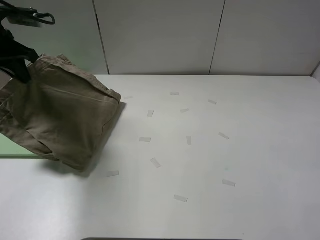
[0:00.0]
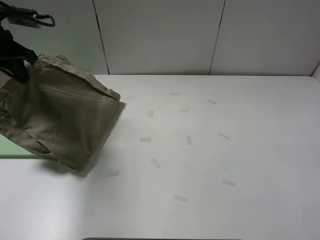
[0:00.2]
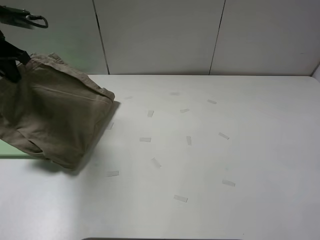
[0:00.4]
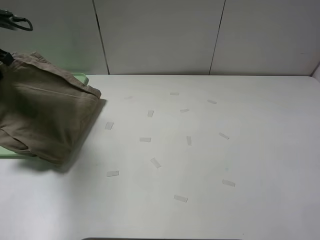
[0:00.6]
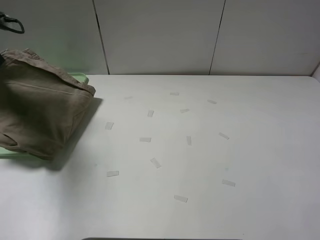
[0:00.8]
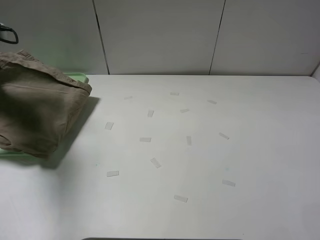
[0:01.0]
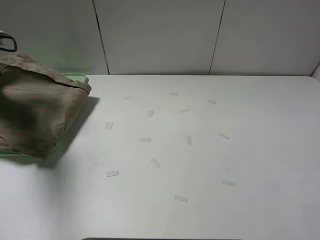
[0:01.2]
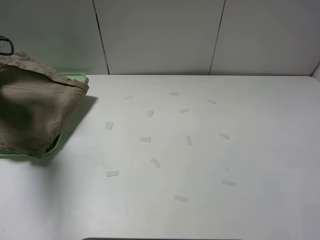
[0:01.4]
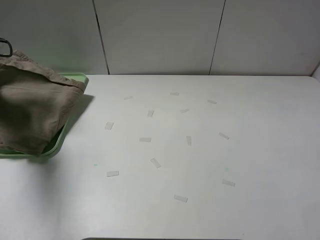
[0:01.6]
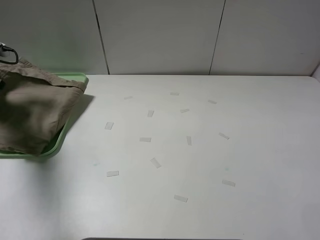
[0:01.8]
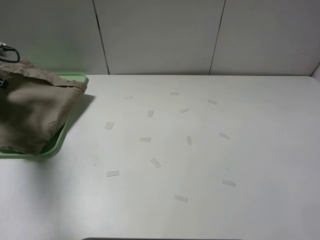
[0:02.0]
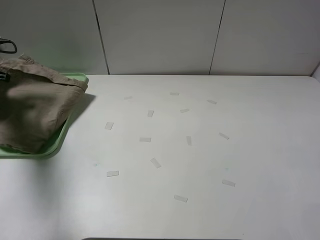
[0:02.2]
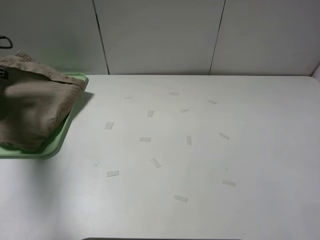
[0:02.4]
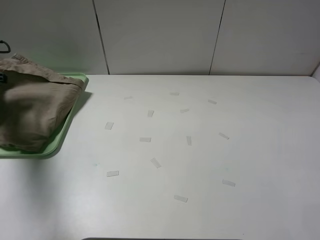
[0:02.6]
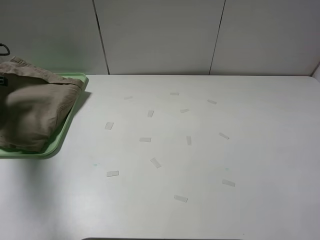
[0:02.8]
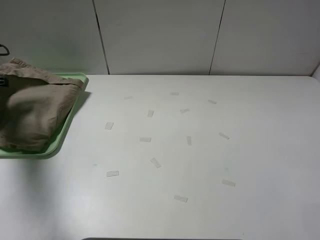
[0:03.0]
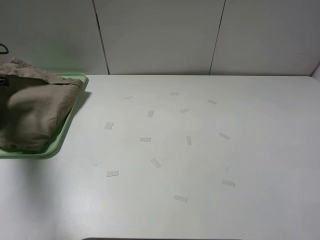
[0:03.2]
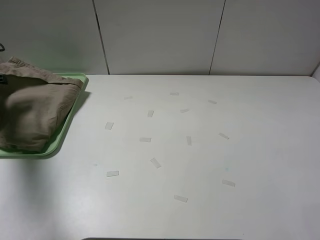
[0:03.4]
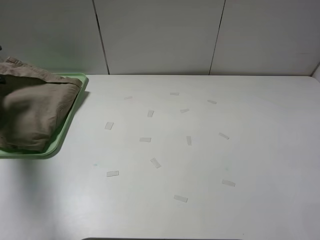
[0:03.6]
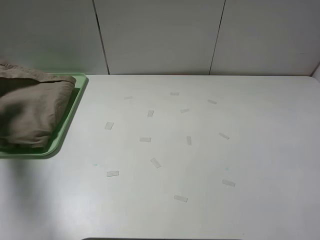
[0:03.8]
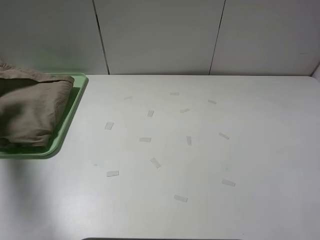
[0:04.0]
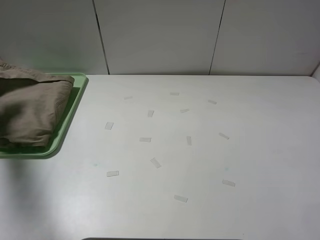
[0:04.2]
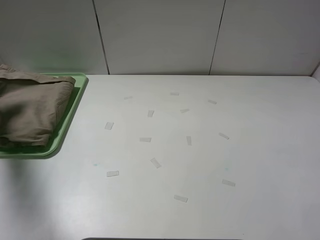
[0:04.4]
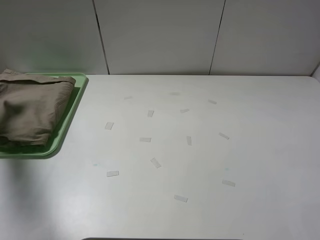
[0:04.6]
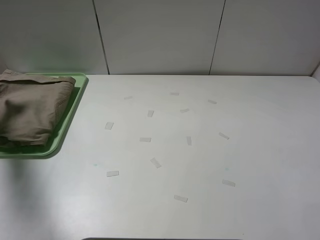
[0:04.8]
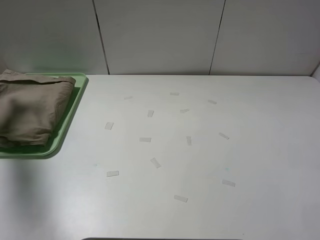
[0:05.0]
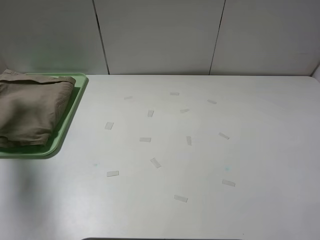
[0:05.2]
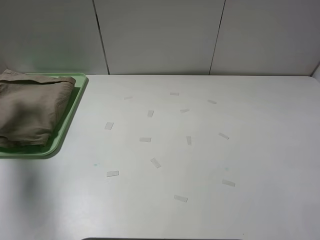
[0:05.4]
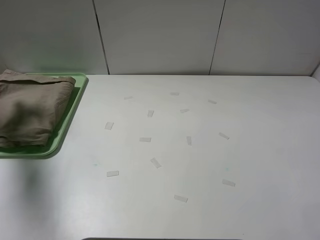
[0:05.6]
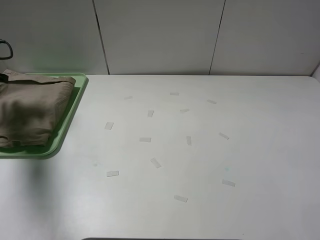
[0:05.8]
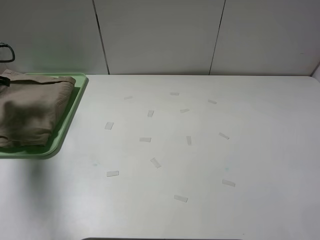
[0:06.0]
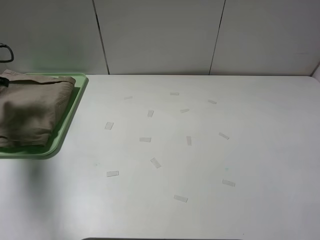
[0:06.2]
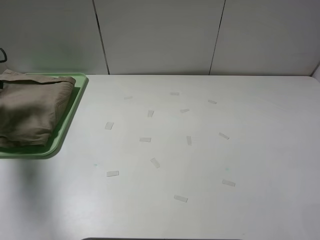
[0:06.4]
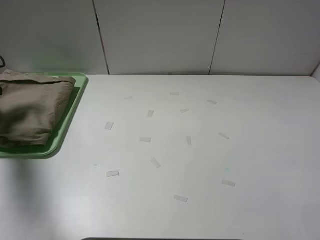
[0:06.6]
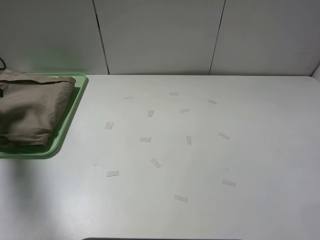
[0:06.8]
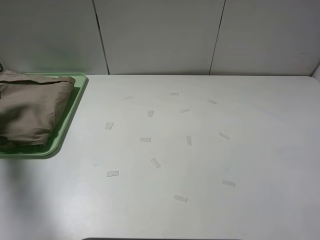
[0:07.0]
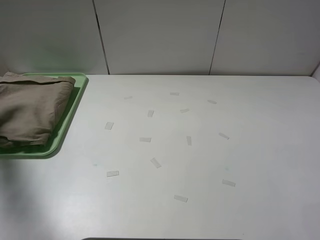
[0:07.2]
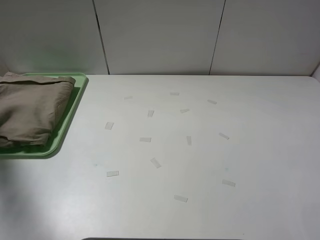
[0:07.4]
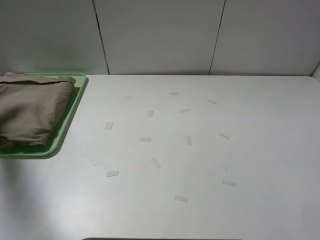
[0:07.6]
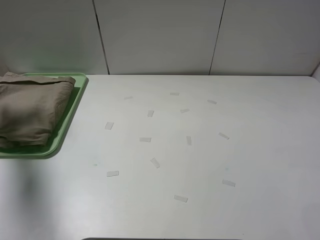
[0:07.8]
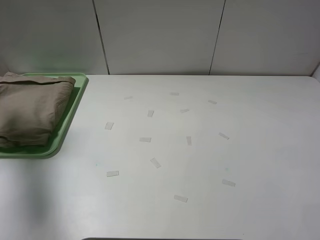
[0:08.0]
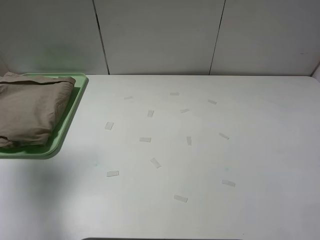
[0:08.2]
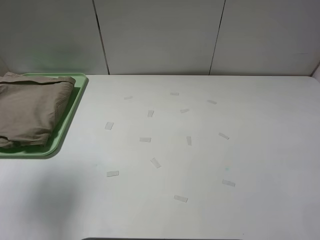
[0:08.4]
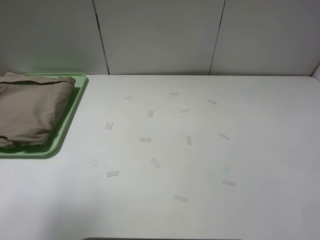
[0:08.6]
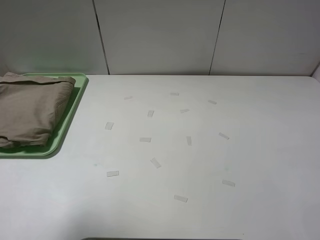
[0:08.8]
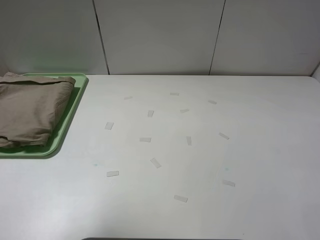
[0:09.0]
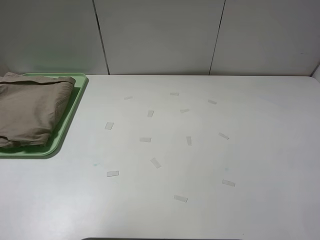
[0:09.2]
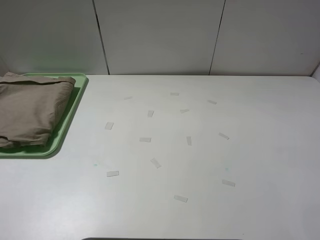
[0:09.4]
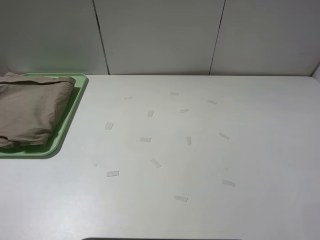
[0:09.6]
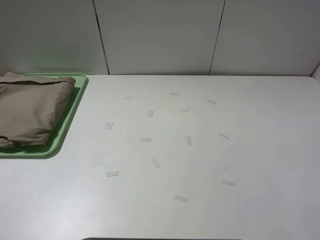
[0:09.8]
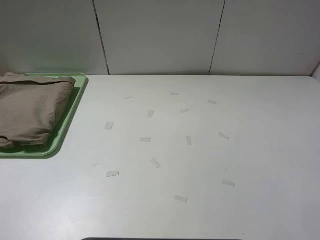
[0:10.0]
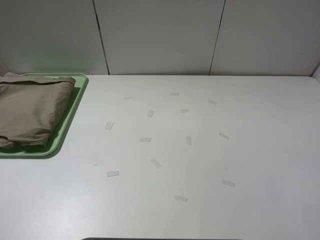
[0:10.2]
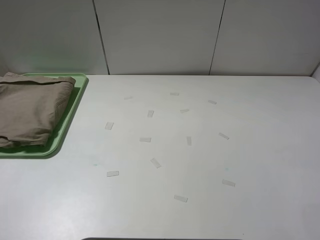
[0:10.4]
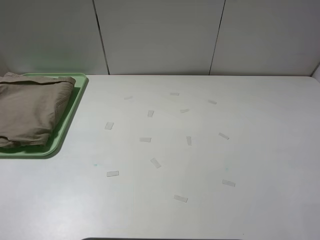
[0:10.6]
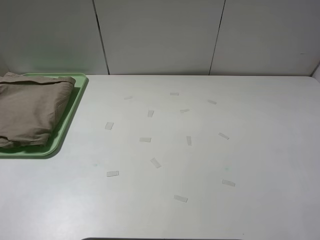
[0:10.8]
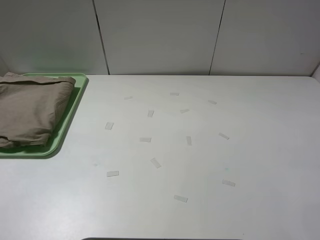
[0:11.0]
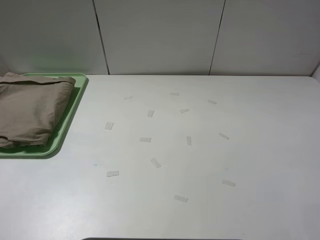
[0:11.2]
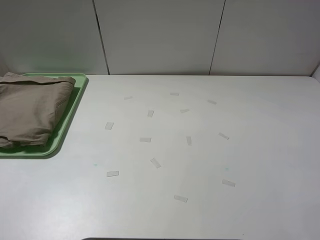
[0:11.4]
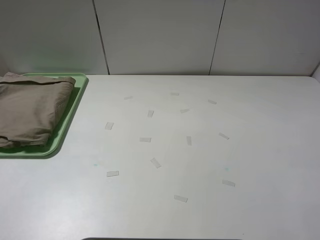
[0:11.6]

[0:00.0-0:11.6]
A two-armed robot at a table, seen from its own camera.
Task of the whole recording: fold the khaki jeans in half with two grippers, then fold them in half again, and use the left claw to place the folded fold khaki jeans on the tray.
Step, 0:00.0 to 0:04.6: Place the folded khaki trousers on the green tray with the left gripper.
0:00.0 to 0:01.4: The left gripper moves to the left, approximately 10 cm.
0:01.4 to 0:02.8: The left gripper heads downward, covering approximately 5 cm.
0:02.8 to 0:04.4: The left gripper opens up.
0:04.4 to 0:05.8: The left gripper opens, then closes once more.
0:05.8 to 0:07.2: The left gripper moves to the left, about 5 cm.
0:07.2 to 0:08.8: The left gripper shifts approximately 40 cm upward, backward and to the right, and opens.
0:08.8 to 0:10.2: The left gripper goes roughly 20 cm backward and downward.

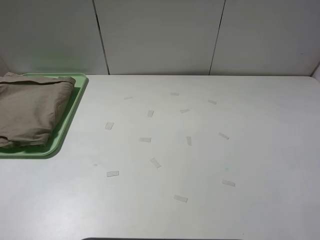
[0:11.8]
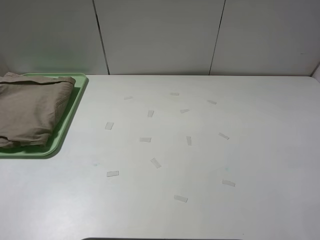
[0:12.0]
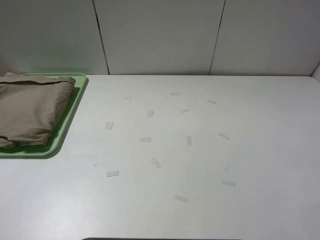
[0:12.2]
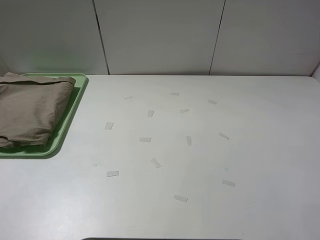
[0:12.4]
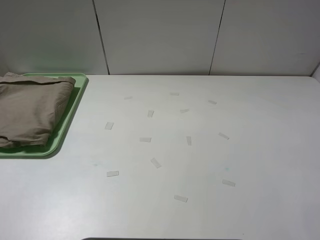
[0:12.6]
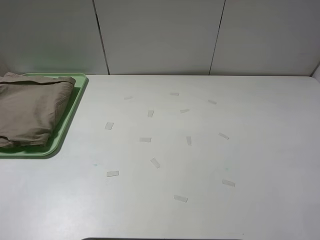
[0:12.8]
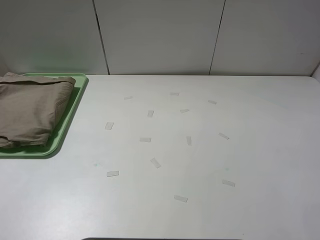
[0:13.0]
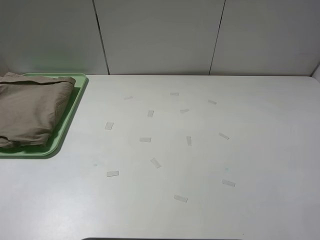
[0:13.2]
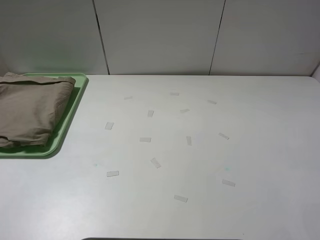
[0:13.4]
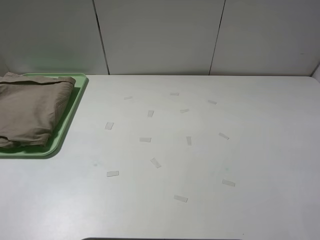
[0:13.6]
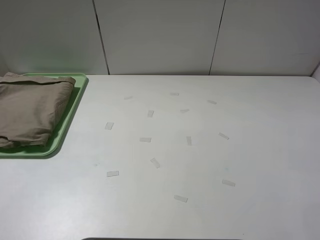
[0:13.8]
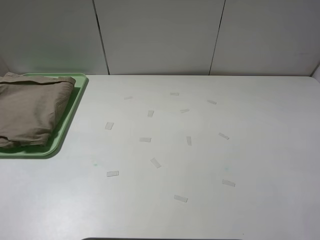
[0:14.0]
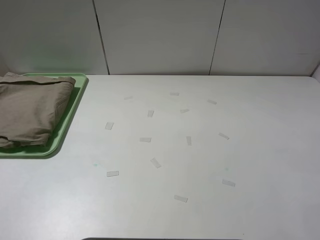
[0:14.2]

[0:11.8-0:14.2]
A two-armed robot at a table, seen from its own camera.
Task of the whole recording: fold the khaki jeans in half with two grippers, then fold them in half again, and use the left claw to place the folded fold khaki jeans on the tray.
0:11.8 to 0:13.0: The two grippers keep their place.
